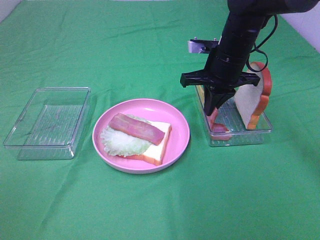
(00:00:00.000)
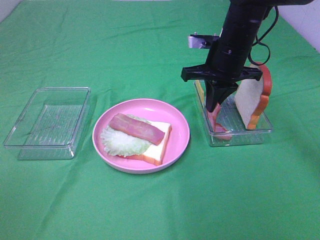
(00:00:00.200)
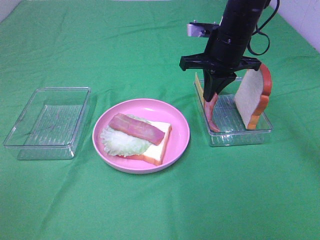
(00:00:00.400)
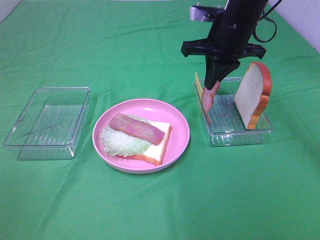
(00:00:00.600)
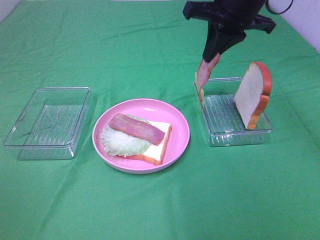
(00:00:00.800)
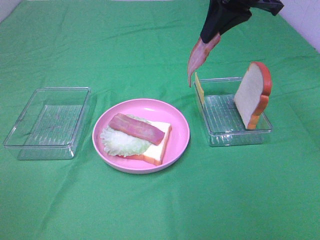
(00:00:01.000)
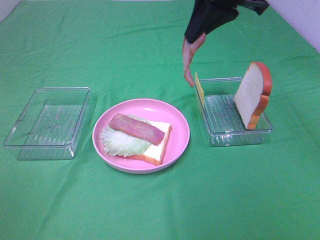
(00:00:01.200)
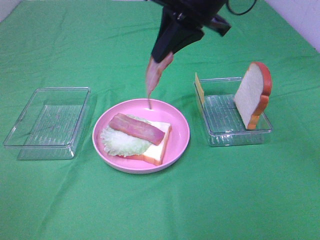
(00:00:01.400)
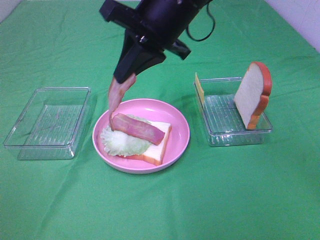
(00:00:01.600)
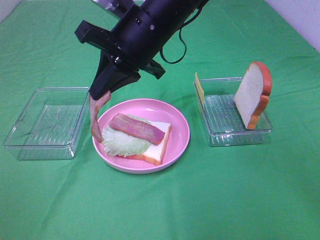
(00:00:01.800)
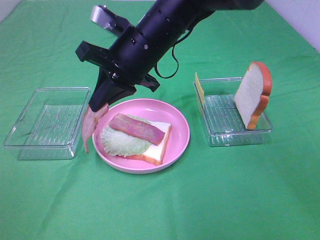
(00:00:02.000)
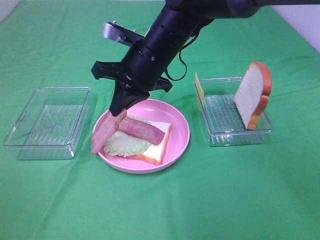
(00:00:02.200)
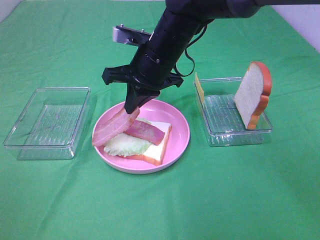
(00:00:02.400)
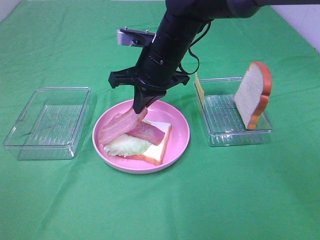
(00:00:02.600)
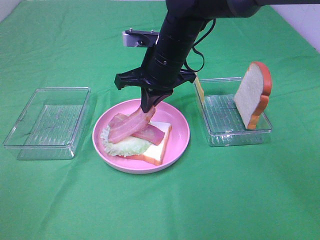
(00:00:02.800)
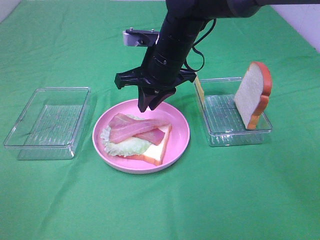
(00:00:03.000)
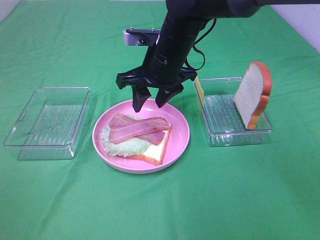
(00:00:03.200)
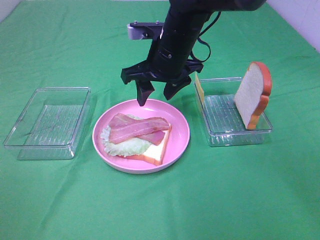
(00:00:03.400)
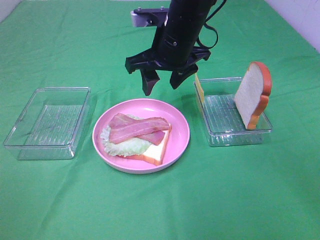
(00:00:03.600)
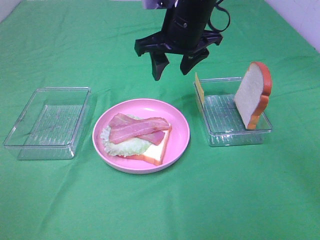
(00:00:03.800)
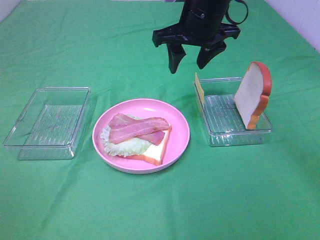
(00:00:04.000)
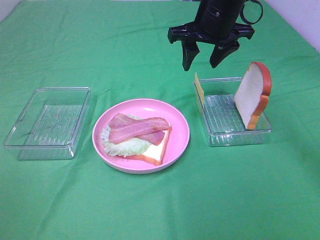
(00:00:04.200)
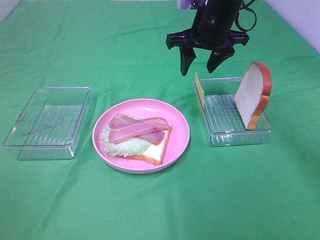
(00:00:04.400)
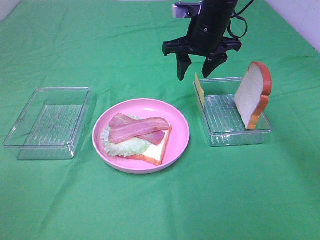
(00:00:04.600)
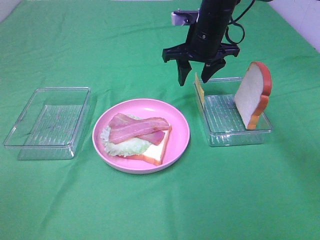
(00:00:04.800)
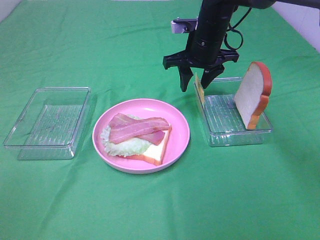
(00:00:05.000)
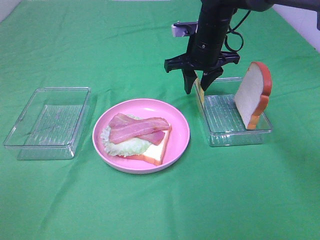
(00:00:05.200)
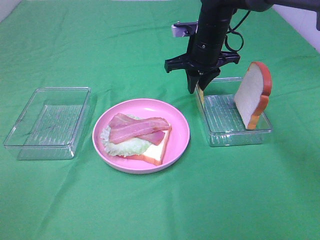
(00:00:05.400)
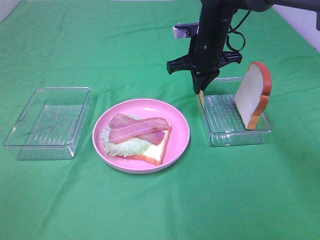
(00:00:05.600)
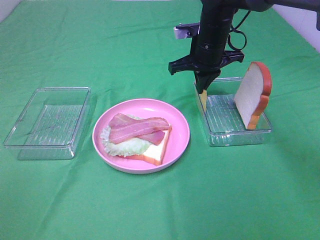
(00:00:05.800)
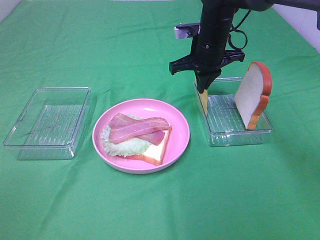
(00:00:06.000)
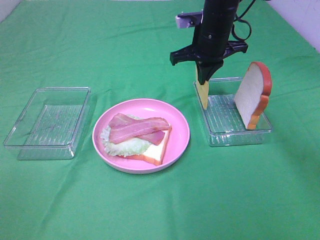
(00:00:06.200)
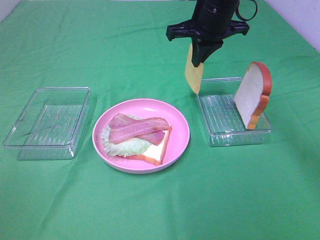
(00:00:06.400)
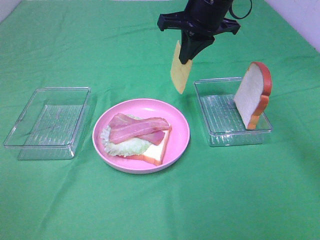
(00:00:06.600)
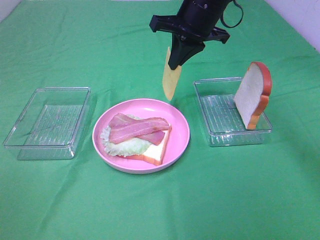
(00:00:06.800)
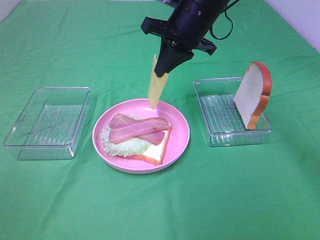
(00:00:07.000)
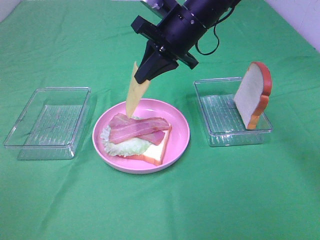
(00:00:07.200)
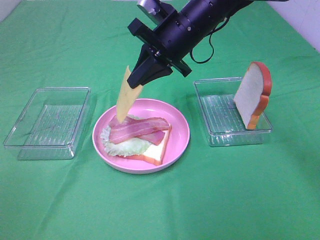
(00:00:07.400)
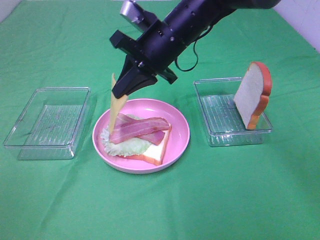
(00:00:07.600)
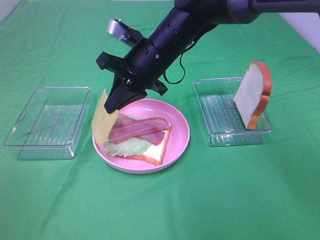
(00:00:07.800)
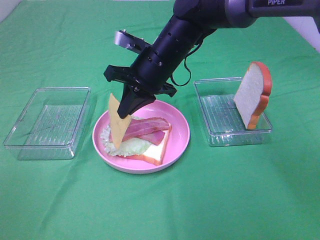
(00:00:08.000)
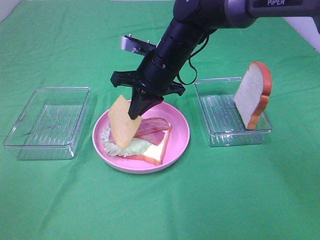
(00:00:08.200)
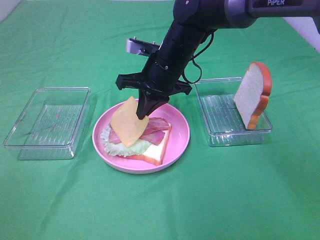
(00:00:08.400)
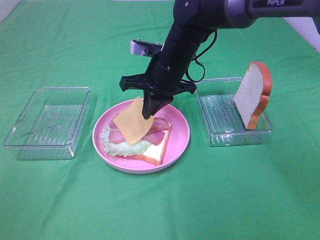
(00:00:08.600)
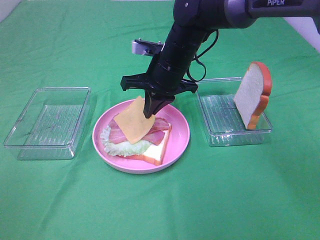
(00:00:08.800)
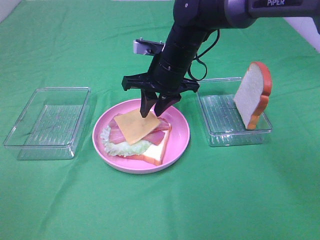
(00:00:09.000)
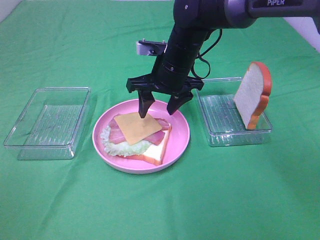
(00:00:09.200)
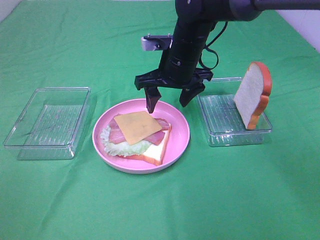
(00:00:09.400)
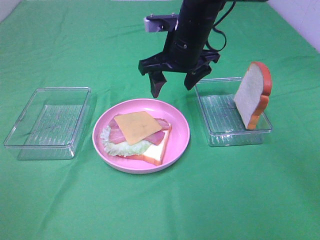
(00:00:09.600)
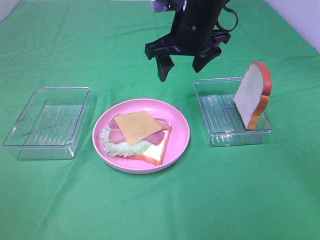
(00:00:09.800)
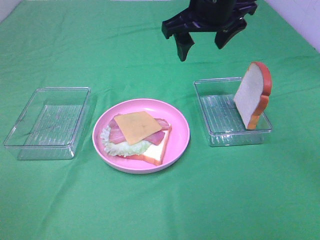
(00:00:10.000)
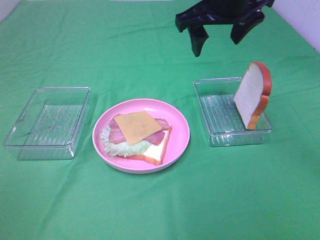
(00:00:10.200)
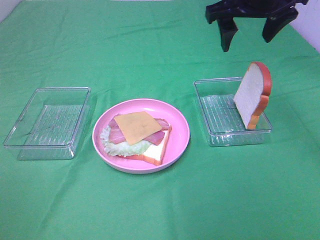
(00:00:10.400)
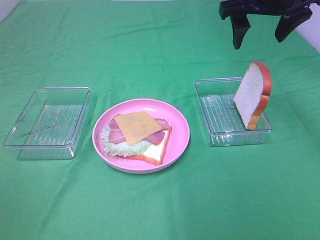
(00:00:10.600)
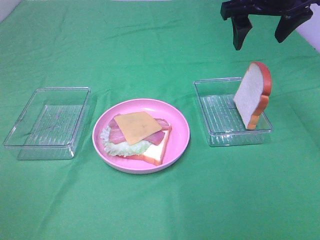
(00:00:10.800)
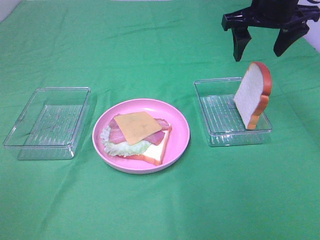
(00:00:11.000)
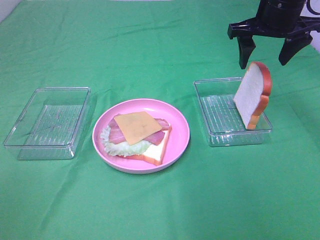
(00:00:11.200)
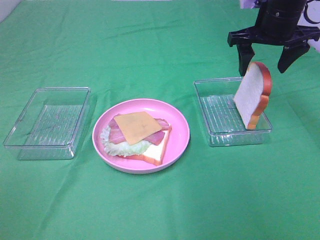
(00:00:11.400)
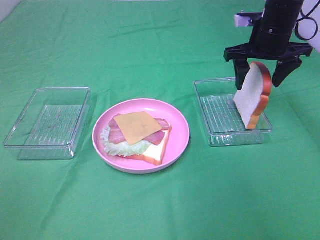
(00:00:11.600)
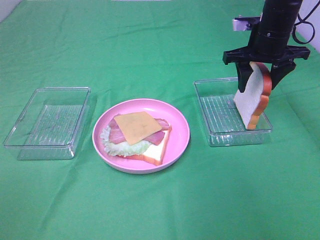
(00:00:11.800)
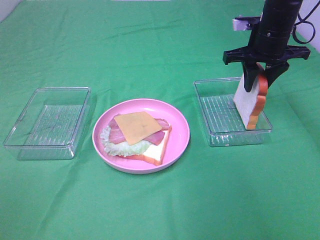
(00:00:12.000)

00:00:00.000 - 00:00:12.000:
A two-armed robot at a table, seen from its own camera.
Task of the whole recording: Make sandwiches.
Step, 00:00:00.200 - 00:00:03.000: Right hand:place bacon on bacon.
Step, 00:00:03.200 - 00:00:05.800: Right hand:grab the cheese slice.
Step, 00:00:06.000 - 00:00:09.000: Right hand:place the cheese slice on top of the bacon.
00:00:00.000 - 00:00:01.600: The right gripper heads to the left, upward and backward, covering approximately 15 cm.
00:00:01.600 - 00:00:03.000: The right gripper is displaced downward by roughly 10 cm.
00:00:03.000 - 00:00:04.400: The right gripper moves to the right and forward, approximately 10 cm, and opens its fingers.
00:00:04.400 - 00:00:06.000: The right gripper shifts roughly 5 cm downward, and closes its fingers.
00:00:06.000 - 00:00:07.600: The right gripper moves to the left and backward, approximately 10 cm.
00:00:07.600 - 00:00:09.000: The right gripper moves approximately 5 cm, and opens.
00:00:09.000 - 00:00:10.400: The right gripper moves upward and to the right, about 20 cm, and opens.
00:00:10.400 - 00:00:12.000: The right gripper is displaced downward and to the right by some 10 cm, and closes.

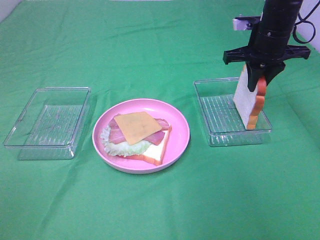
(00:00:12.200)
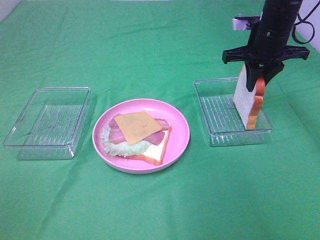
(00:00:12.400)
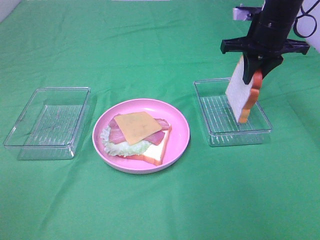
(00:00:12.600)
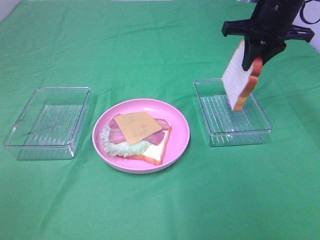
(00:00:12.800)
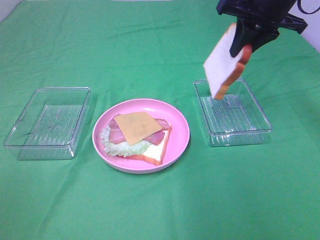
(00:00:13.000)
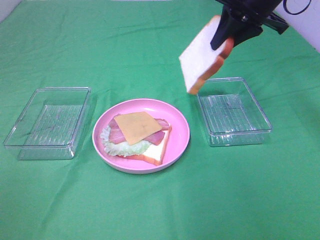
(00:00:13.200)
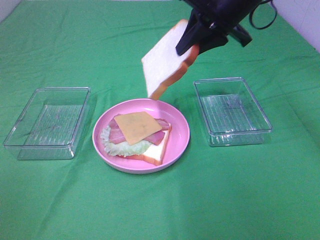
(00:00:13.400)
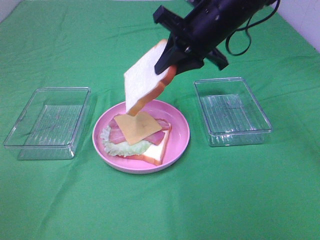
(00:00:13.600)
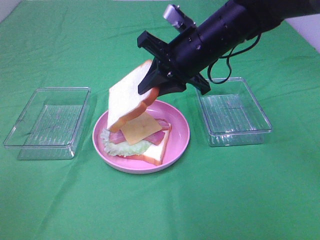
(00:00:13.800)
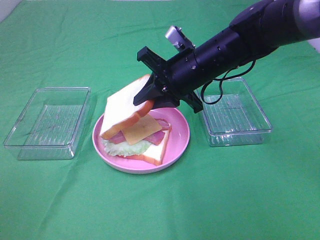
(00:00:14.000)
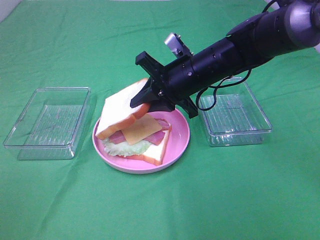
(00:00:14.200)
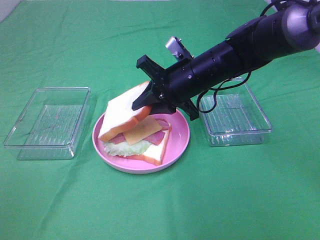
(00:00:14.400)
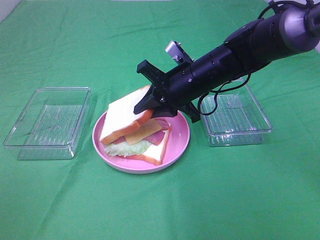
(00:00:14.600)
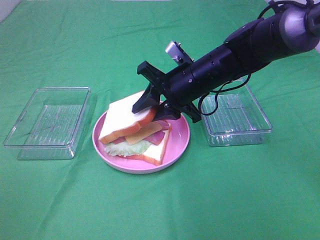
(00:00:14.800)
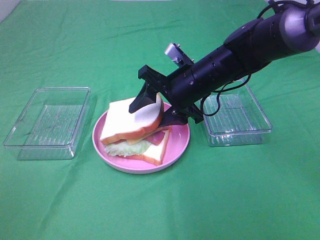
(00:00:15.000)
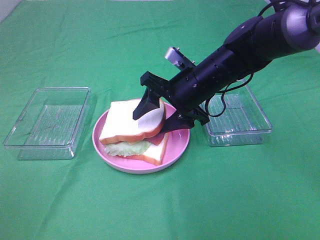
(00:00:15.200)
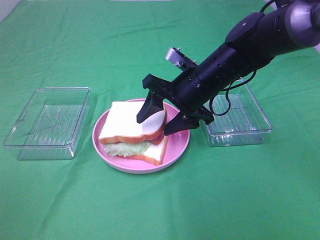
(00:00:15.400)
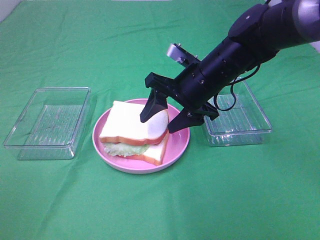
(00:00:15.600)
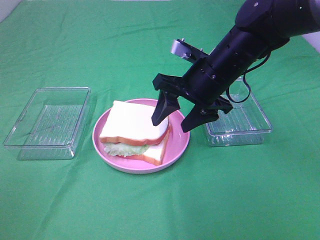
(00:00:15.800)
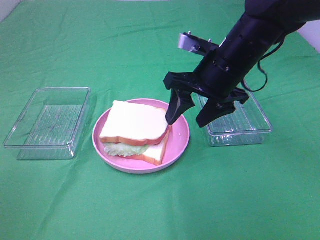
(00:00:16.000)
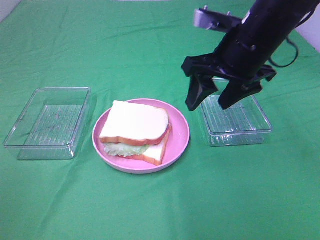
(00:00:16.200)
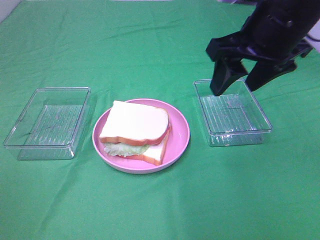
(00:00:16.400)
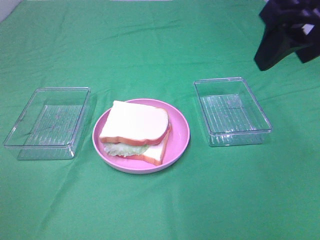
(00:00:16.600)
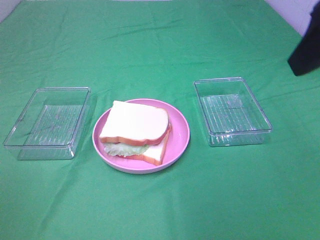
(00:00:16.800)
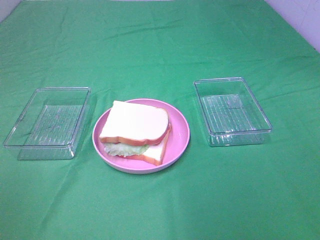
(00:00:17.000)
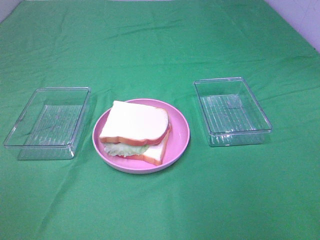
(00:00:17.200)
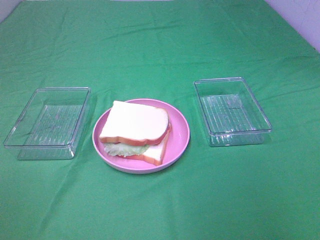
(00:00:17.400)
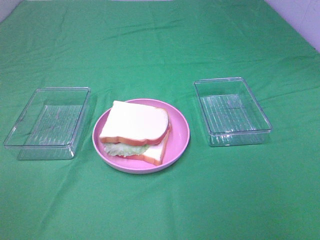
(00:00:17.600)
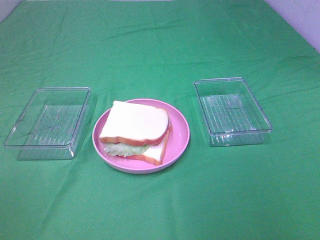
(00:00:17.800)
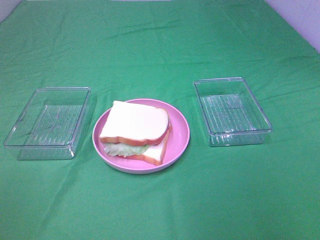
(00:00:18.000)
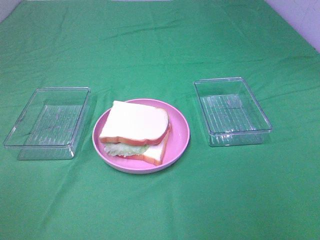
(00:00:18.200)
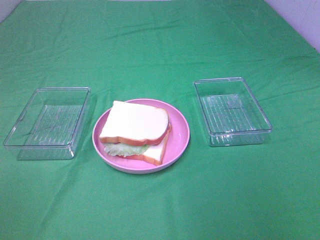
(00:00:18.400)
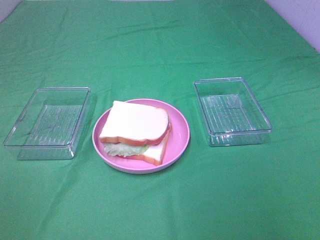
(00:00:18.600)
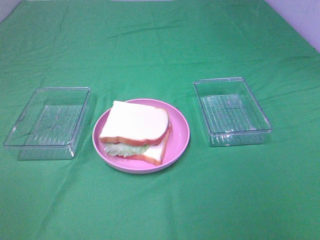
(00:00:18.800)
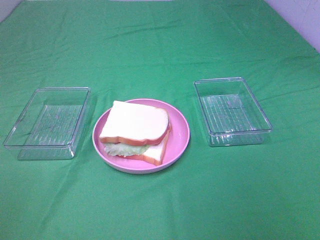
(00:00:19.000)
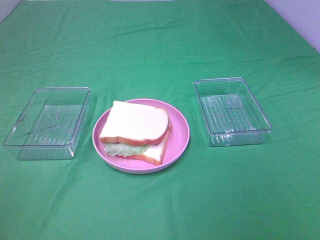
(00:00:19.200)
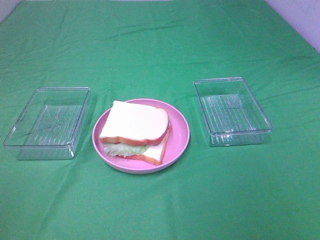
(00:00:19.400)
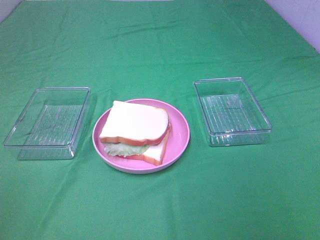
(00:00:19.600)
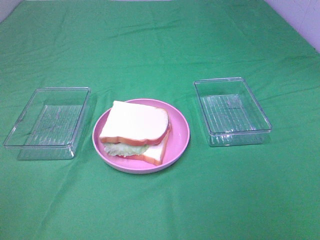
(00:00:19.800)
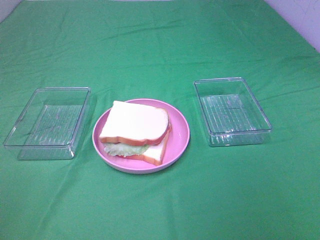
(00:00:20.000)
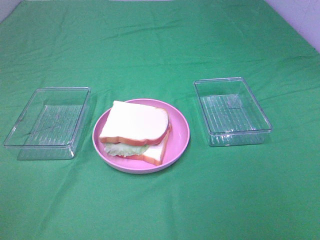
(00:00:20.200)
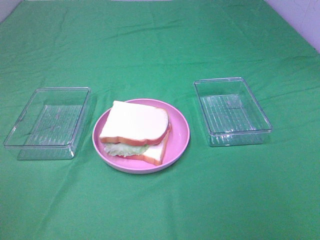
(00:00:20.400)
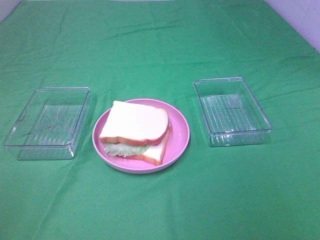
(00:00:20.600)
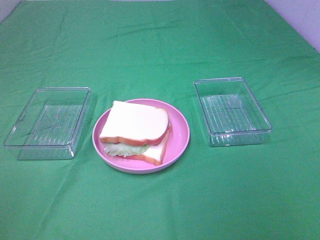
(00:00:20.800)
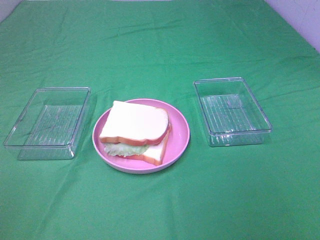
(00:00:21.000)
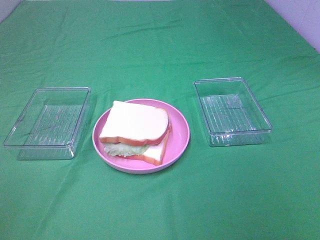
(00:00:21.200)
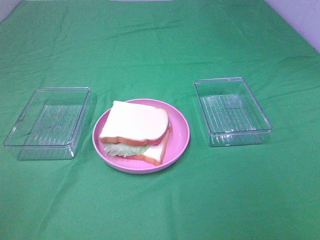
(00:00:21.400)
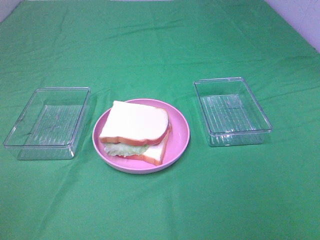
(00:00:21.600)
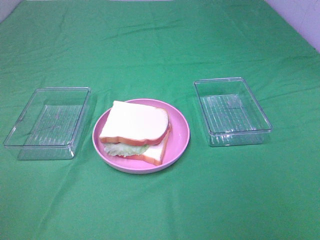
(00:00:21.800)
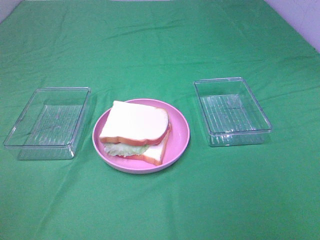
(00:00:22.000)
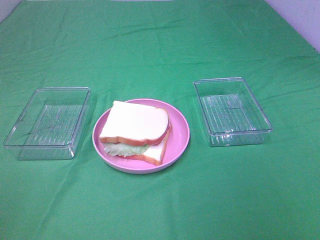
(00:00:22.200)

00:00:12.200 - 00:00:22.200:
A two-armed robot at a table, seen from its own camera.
Task of the whole recording: Make sandwiches.
Step, 00:00:12.400 - 00:00:15.600: Right hand:place the bread slice on the cheese slice.
00:00:12.200 - 00:00:13.600: The right gripper moves to the left and backward, roughly 15 cm.
00:00:13.600 - 00:00:15.000: The right gripper heads downward, covering some 10 cm, and opens.
00:00:15.000 - 00:00:16.400: The right gripper moves upward, to the right and backward, approximately 20 cm.
00:00:16.400 - 00:00:18.000: The right gripper shifts roughly 30 cm backward and to the right.
00:00:19.400 - 00:00:22.200: The two grippers keep their place.
